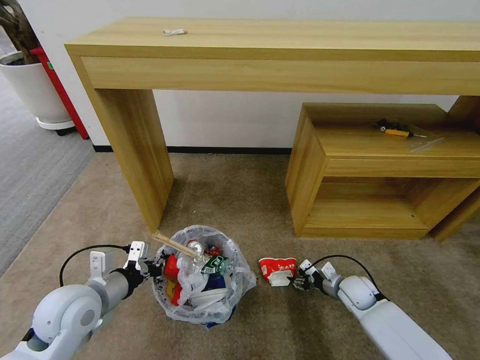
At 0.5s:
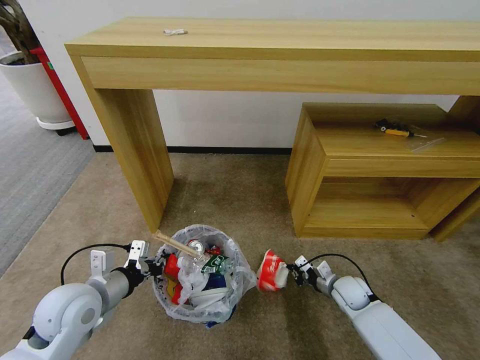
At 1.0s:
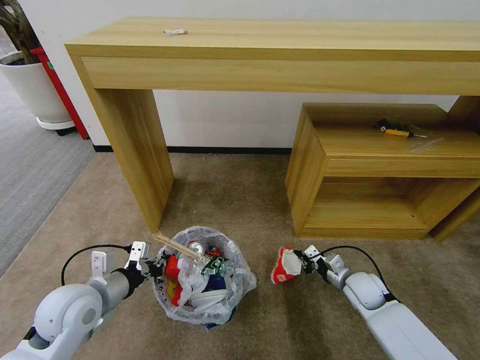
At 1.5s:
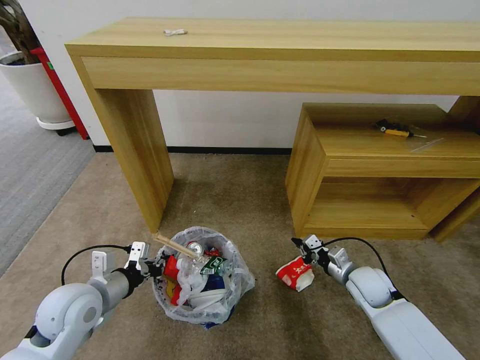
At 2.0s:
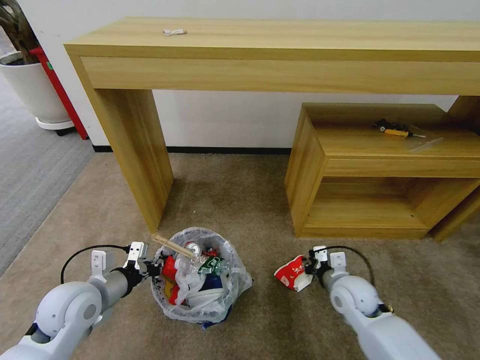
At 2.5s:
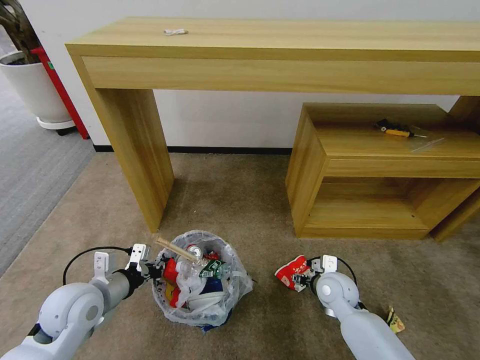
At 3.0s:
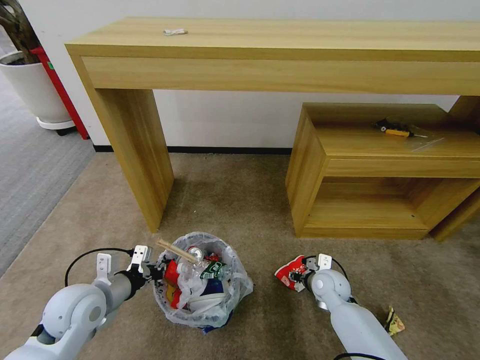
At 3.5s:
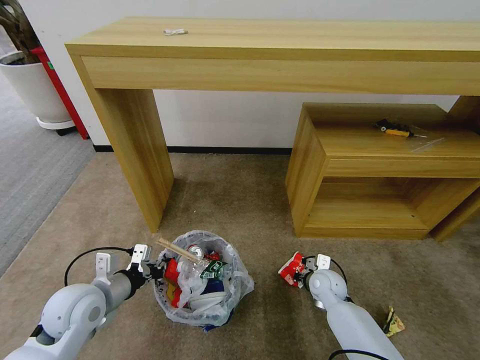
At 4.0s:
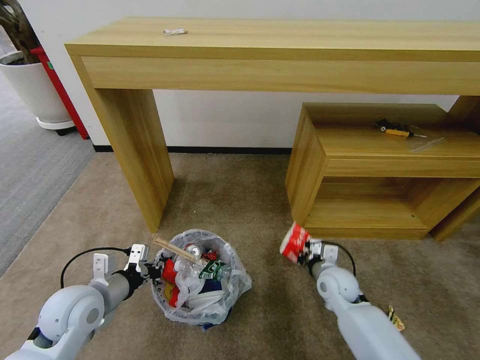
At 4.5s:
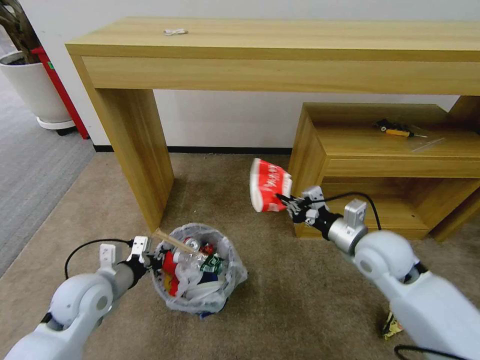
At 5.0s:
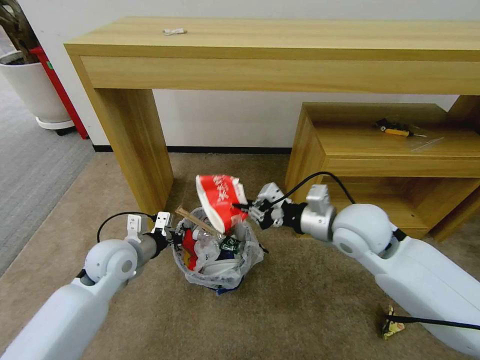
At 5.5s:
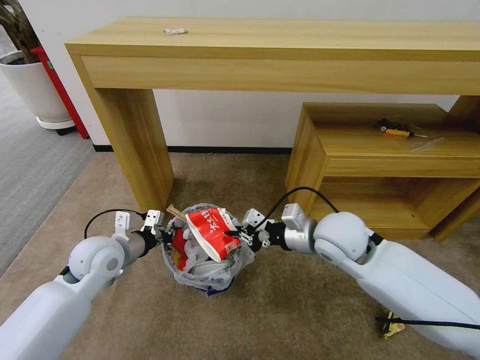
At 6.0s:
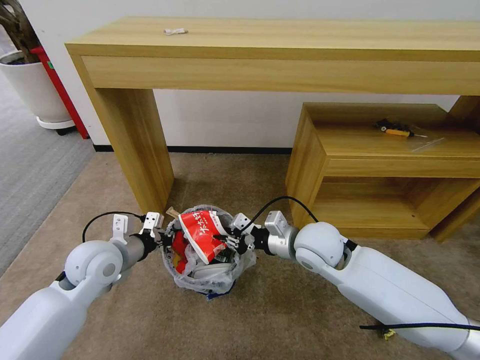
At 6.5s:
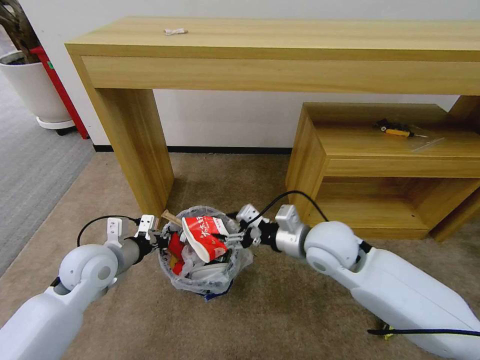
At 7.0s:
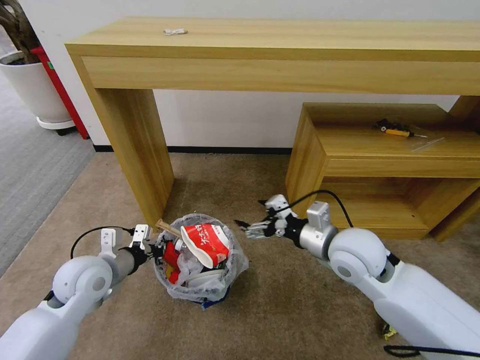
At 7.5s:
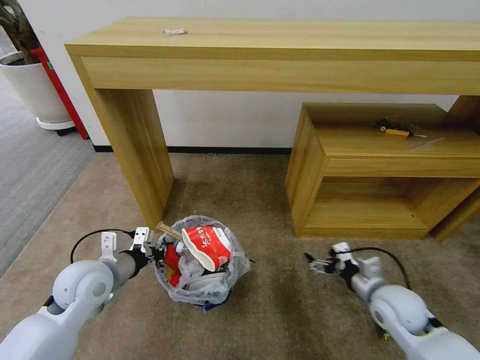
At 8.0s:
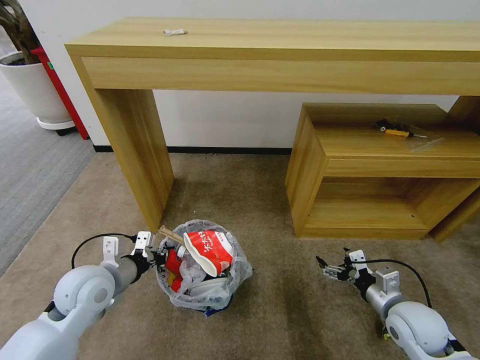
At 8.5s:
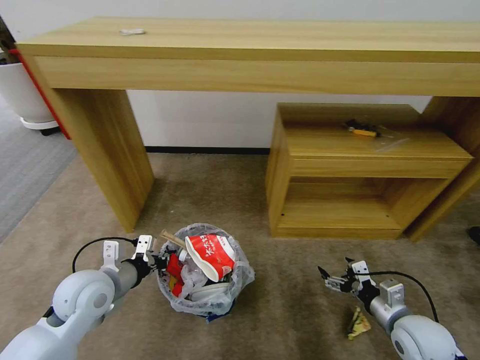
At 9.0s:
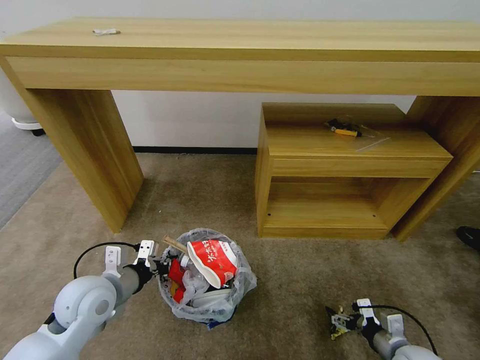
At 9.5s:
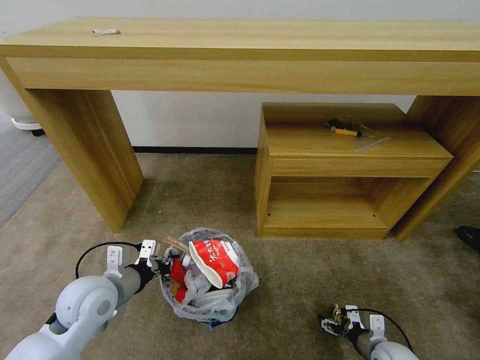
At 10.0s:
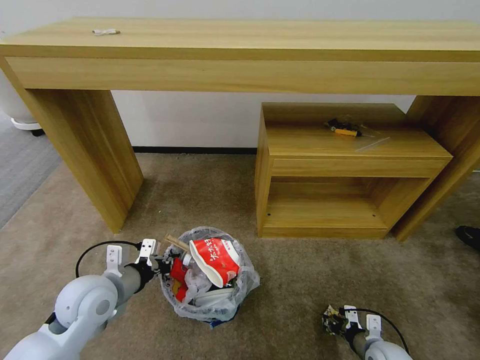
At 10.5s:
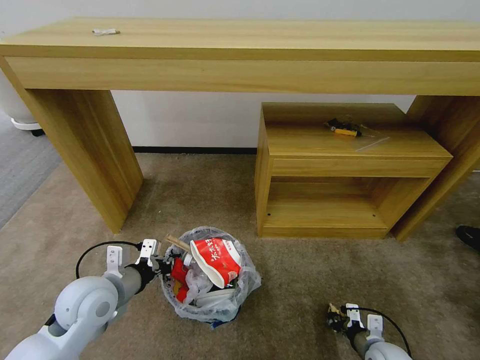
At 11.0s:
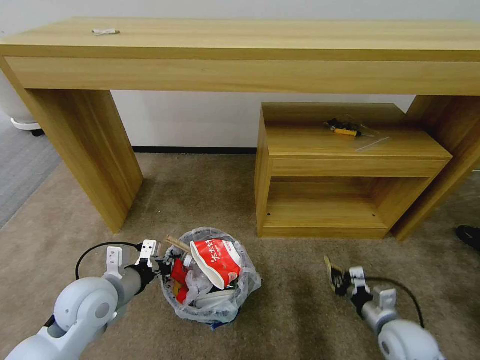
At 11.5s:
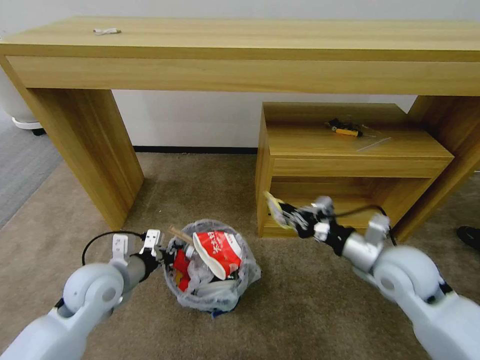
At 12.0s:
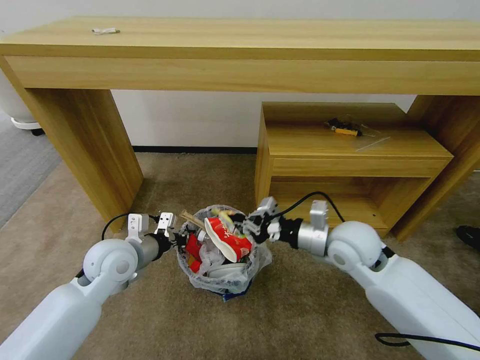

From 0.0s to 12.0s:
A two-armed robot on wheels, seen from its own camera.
Task of the whole recording: Pick up the trash bin and place the garbage on the floor into it.
From 0.0s to 2.0s: The right gripper goes about 10 cm upward and to the left.
From 2.0s to 4.0s: The right gripper opens and closes again.
From 4.0s to 6.0s: The right gripper is displaced upward and to the left by some 20 cm, while the left gripper is displaced forward by approximately 10 cm.
From 6.0s to 8.0s: The right gripper moves to the right, backward and downward, roughly 25 cm, and opens. The left gripper changes place by some 5 cm.
From 8.0s to 10.0s: The right gripper is displaced downward by some 15 cm, and closes up.
From 10.0s to 12.0s: The right gripper goes roughly 35 cm upward, forward and to the left, and closes its fingers, while the left gripper heads forward, covering approximately 5 cm.

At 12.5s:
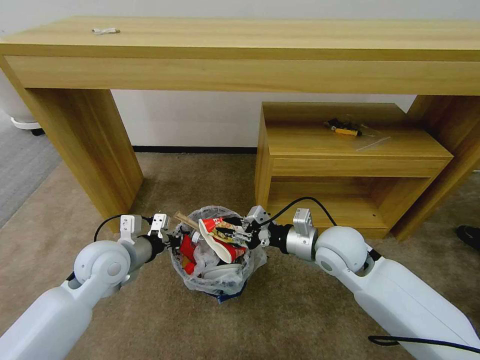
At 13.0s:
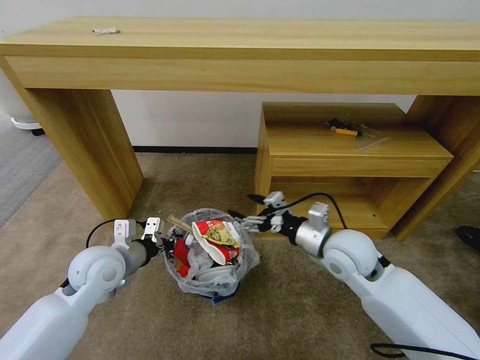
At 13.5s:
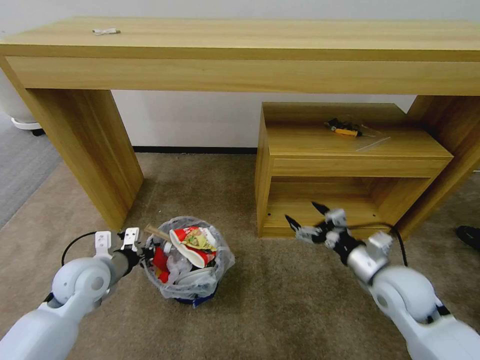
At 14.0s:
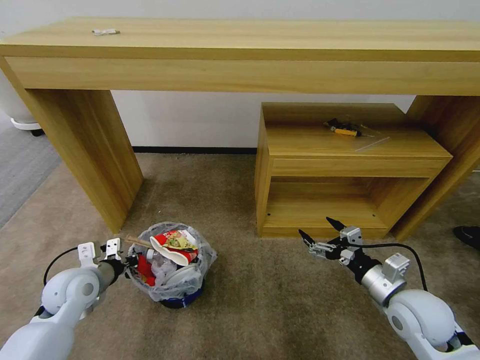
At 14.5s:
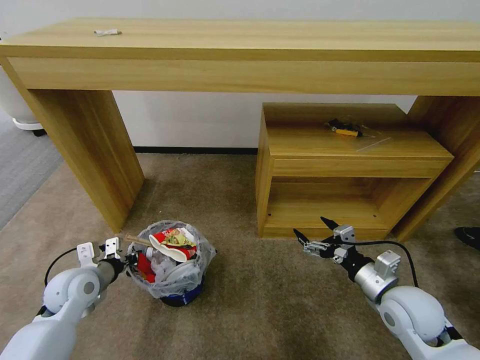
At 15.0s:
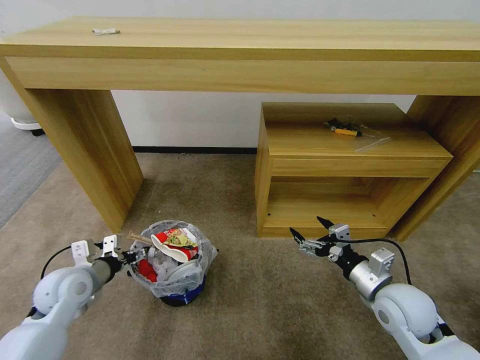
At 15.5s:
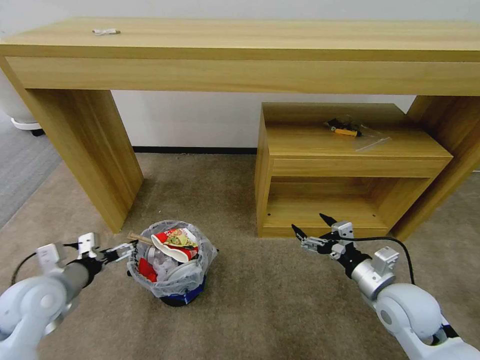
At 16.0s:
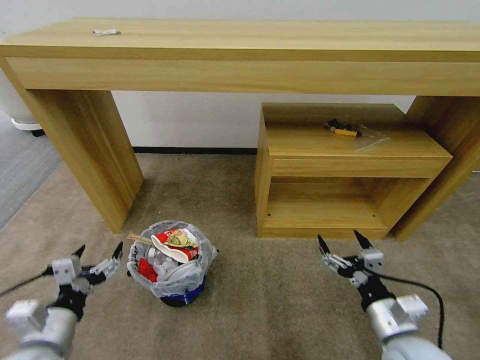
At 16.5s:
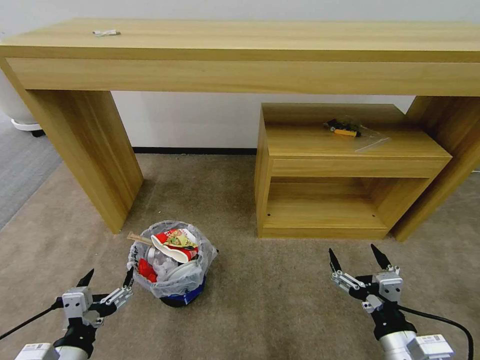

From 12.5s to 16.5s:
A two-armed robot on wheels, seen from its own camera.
Task of the whole recording: Pick up the trash bin and place the garbage on the floor into it.
From 12.5s to 14.5s: The right gripper travels to the right, backward and downward by about 15 cm, and opens, while the left gripper goes some 10 cm to the left and downward.
From 14.5s to 16.5s: The left gripper moves backward, some 20 cm, and opens its fingers. The right gripper travels backward by roughly 15 cm.

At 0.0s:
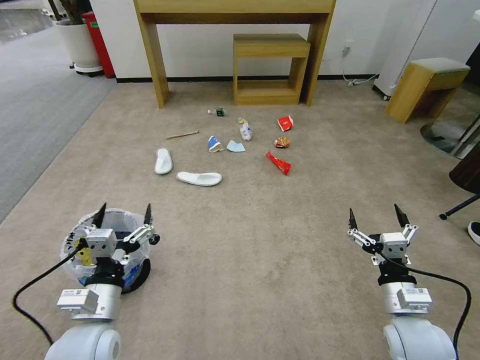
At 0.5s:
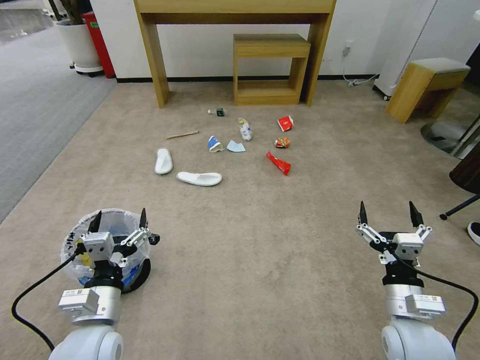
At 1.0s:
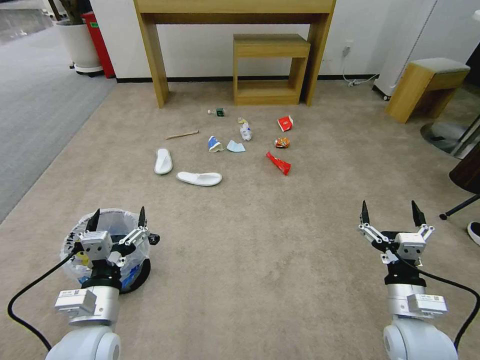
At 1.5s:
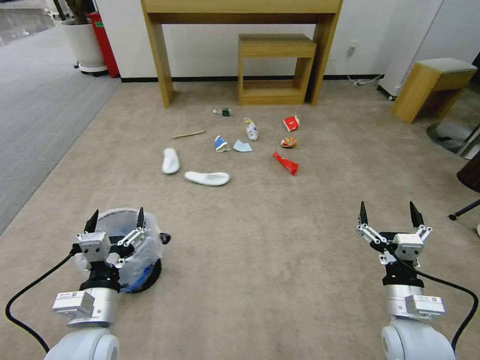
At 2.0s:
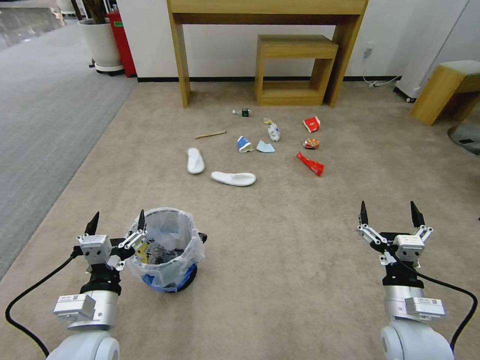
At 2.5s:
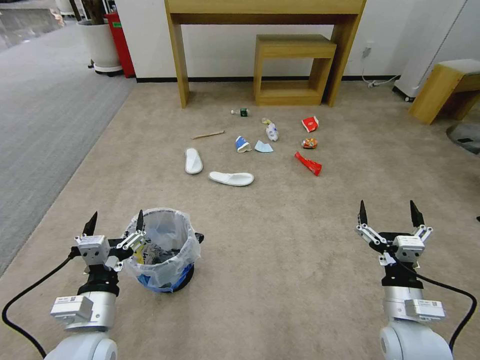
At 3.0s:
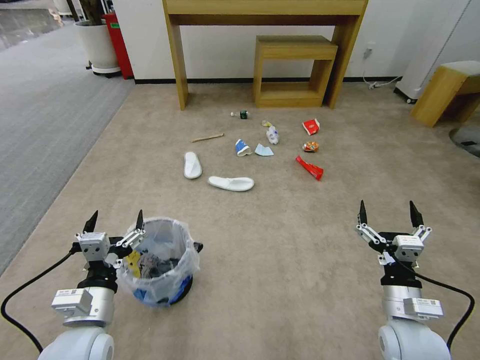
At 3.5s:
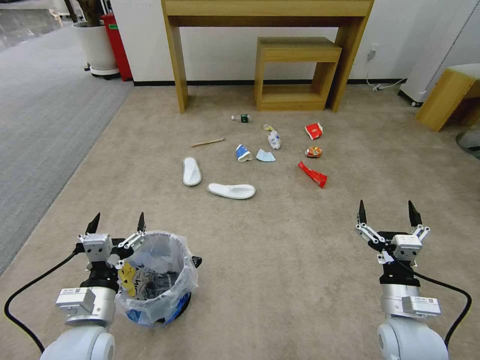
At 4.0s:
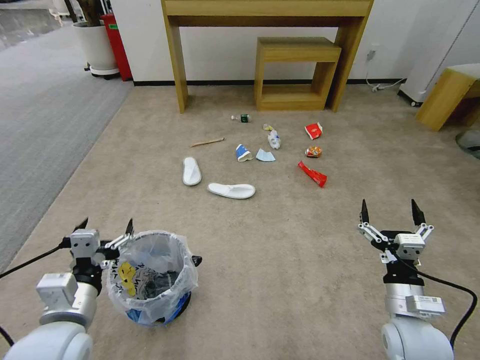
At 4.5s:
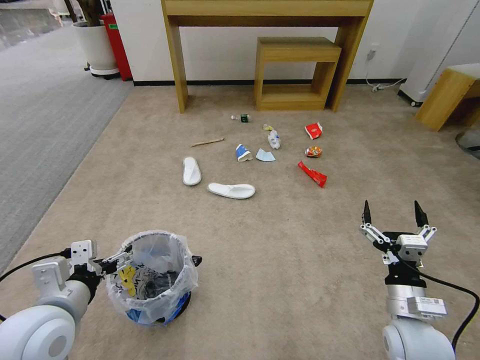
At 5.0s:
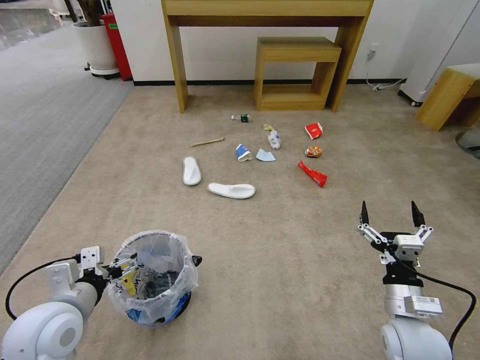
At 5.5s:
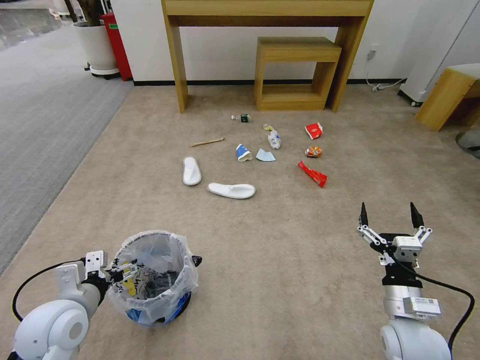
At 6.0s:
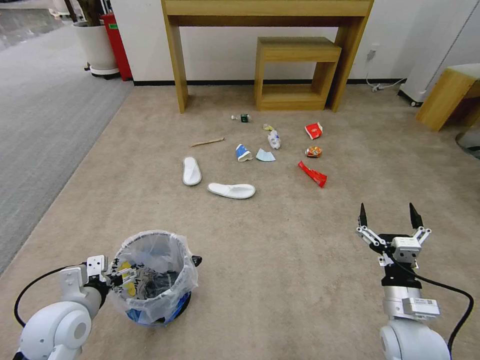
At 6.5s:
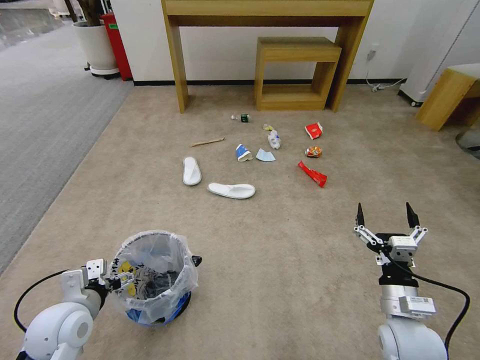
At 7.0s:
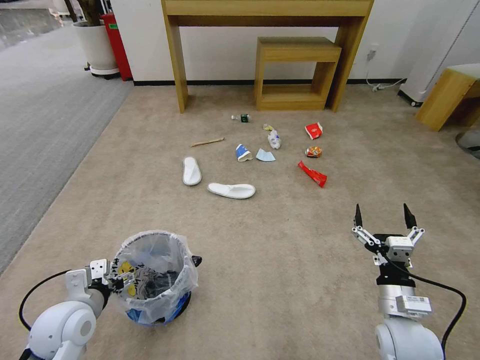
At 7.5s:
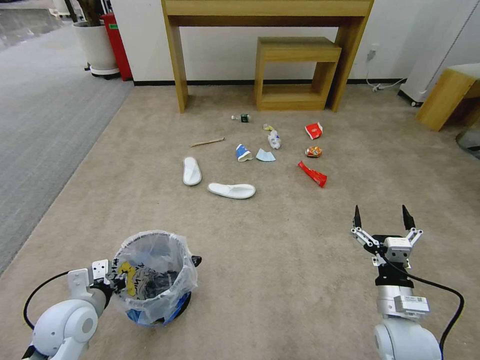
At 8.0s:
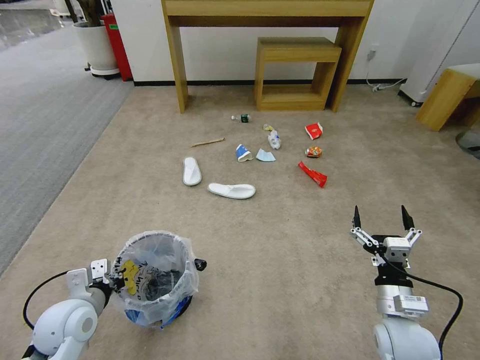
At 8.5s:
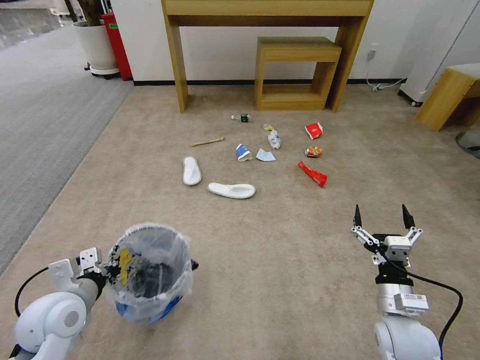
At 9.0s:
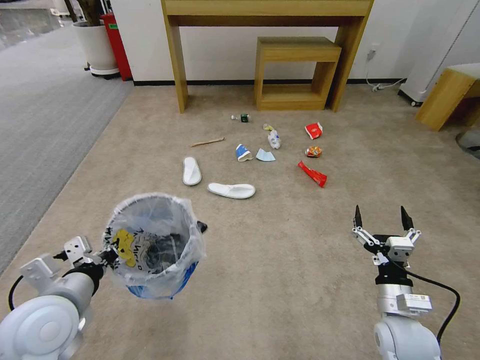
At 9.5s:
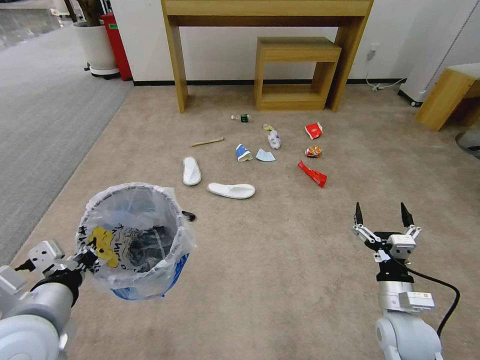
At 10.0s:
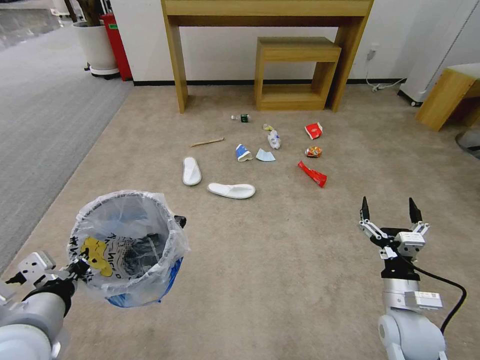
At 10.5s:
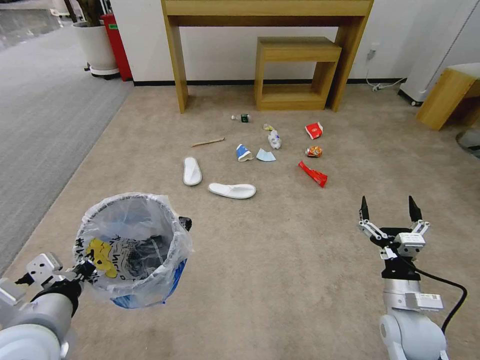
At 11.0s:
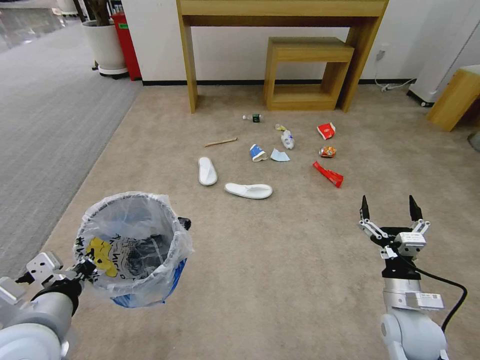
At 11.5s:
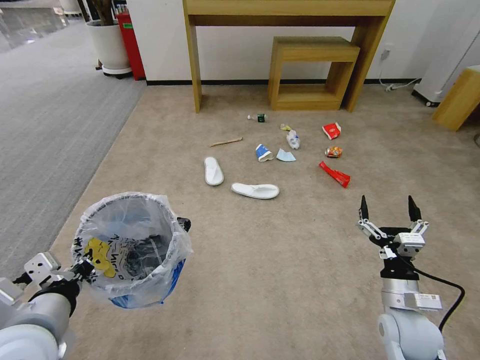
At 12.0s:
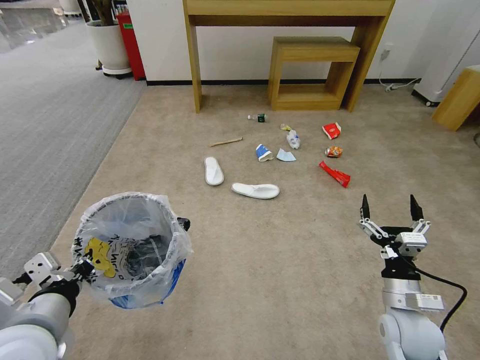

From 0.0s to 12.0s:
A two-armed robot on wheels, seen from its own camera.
Task of the whole recording: Pick up the trash bin and place the garbage on the floor into it.
From 2.0s to 4.0s: The left gripper moves about 5 cm.
From 4.0s to 6.0s: The left gripper goes about 5 cm downward.
From 6.0s to 8.0s: The left gripper closes.
From 8.0s to 10.0s: The left gripper goes about 15 cm upward and backward.
From 10.0s to 12.0s: Neither gripper changes place.
